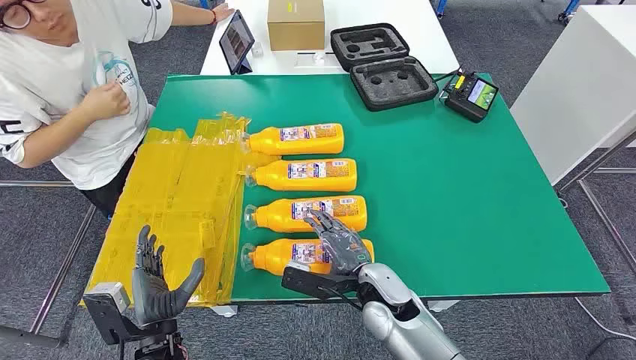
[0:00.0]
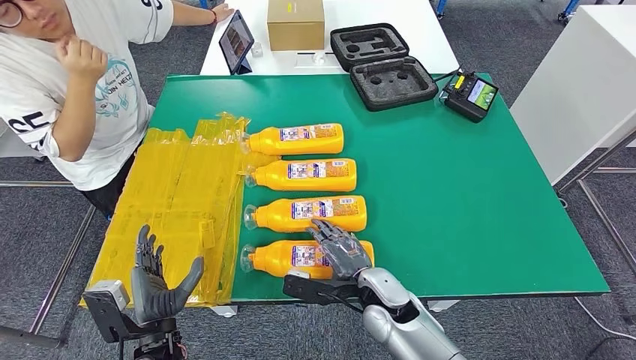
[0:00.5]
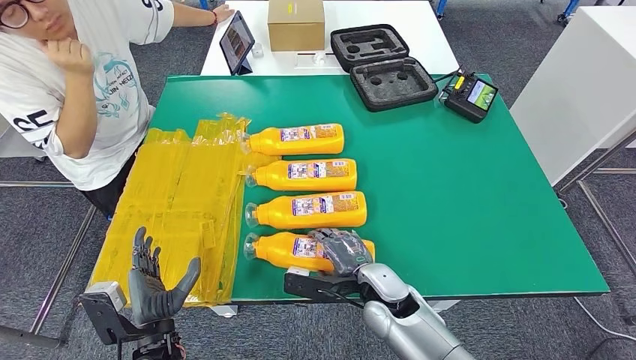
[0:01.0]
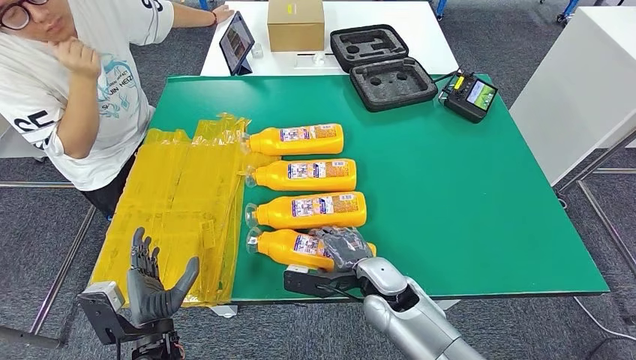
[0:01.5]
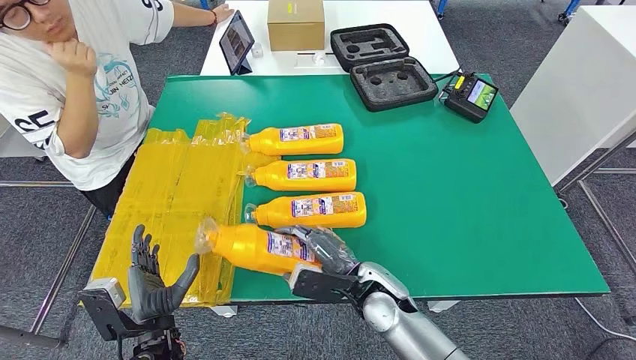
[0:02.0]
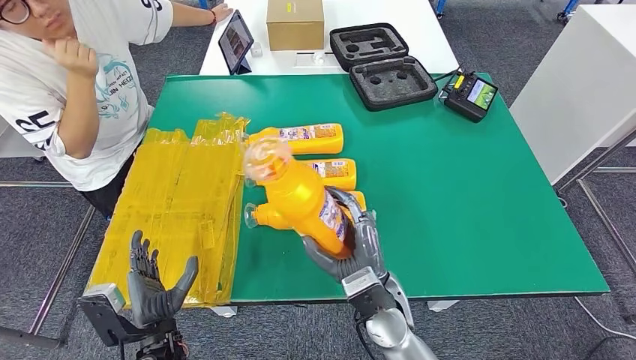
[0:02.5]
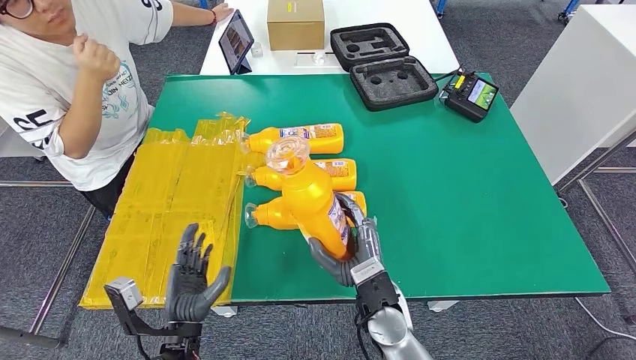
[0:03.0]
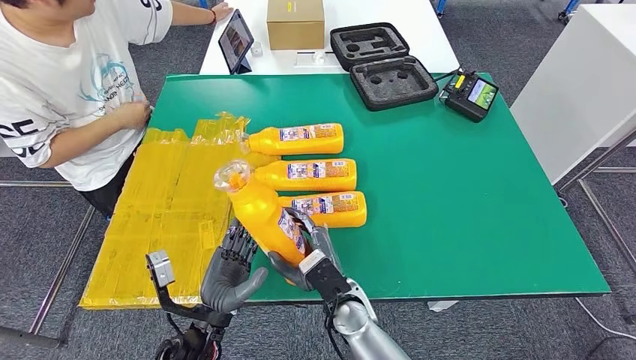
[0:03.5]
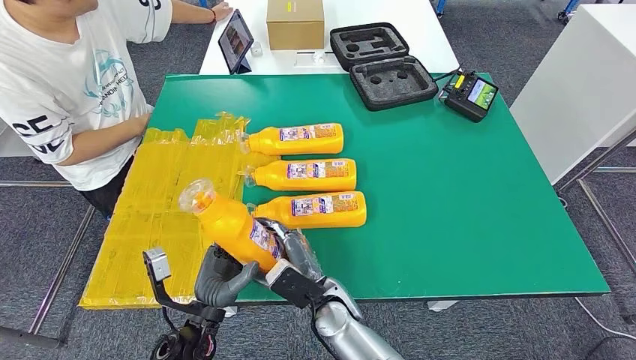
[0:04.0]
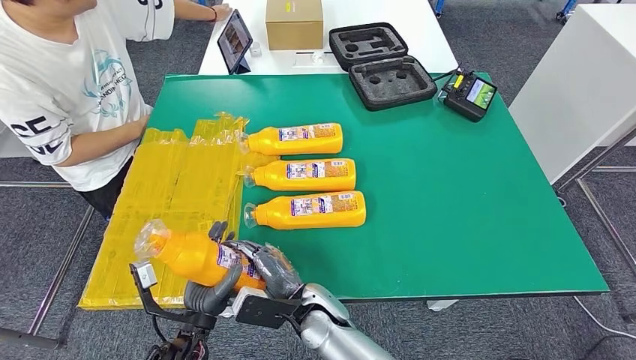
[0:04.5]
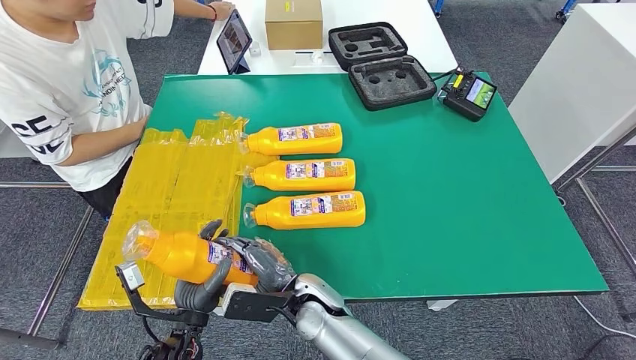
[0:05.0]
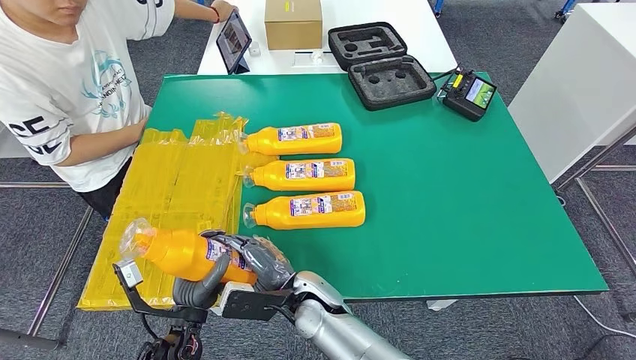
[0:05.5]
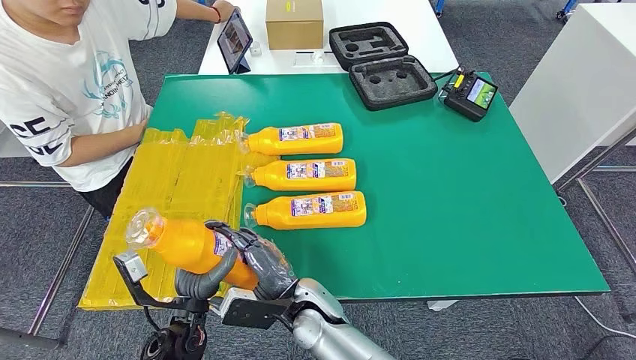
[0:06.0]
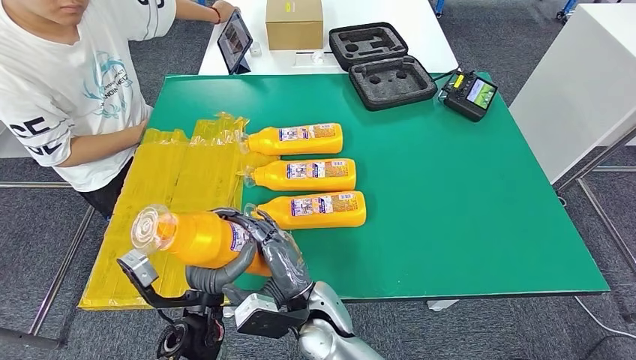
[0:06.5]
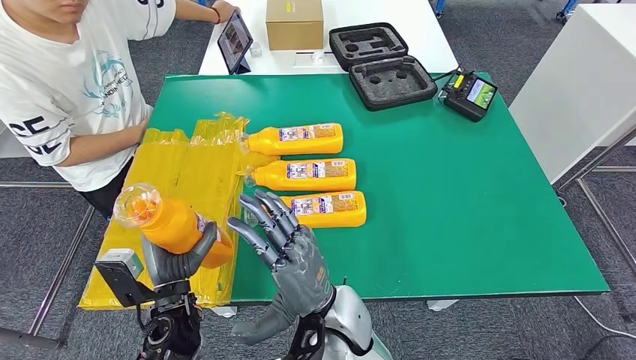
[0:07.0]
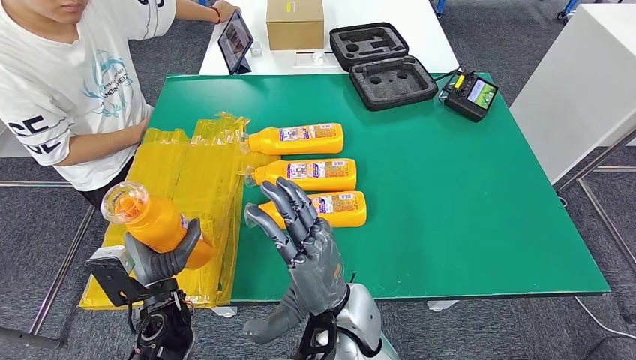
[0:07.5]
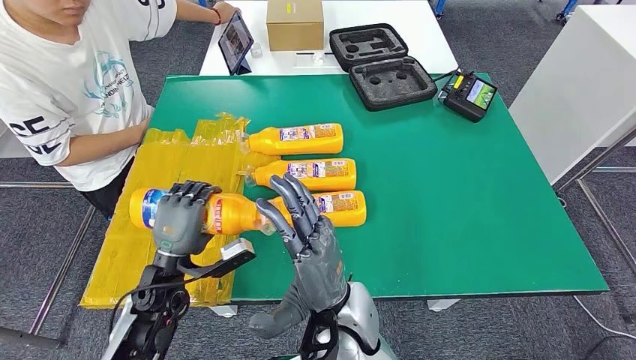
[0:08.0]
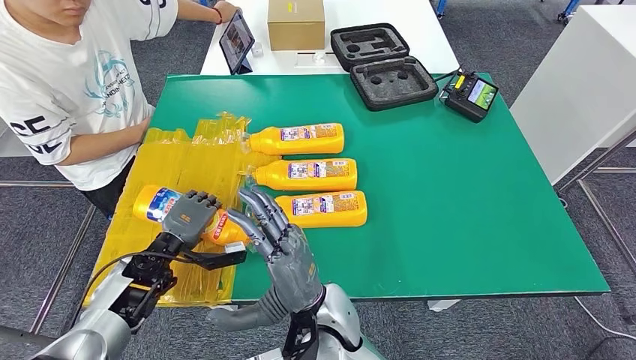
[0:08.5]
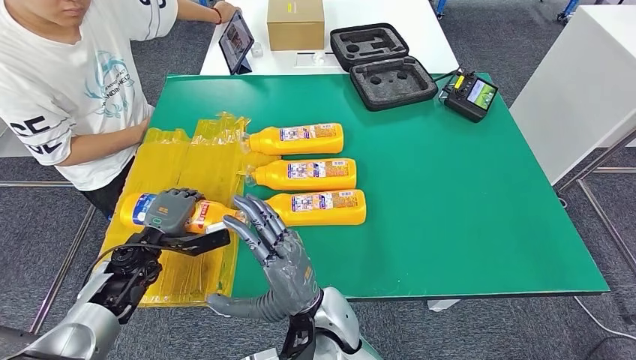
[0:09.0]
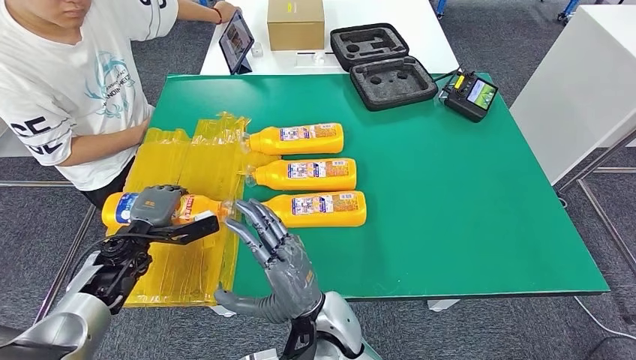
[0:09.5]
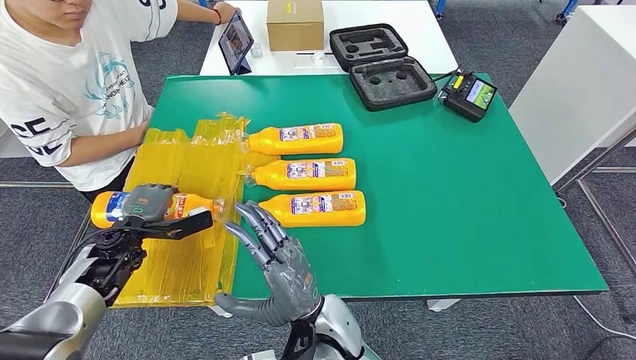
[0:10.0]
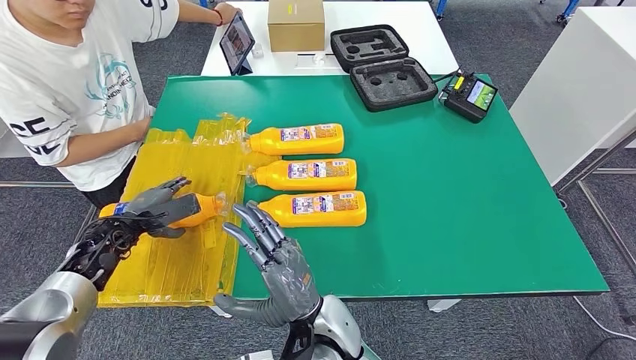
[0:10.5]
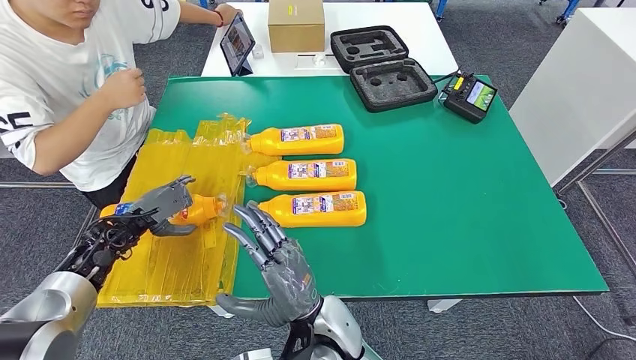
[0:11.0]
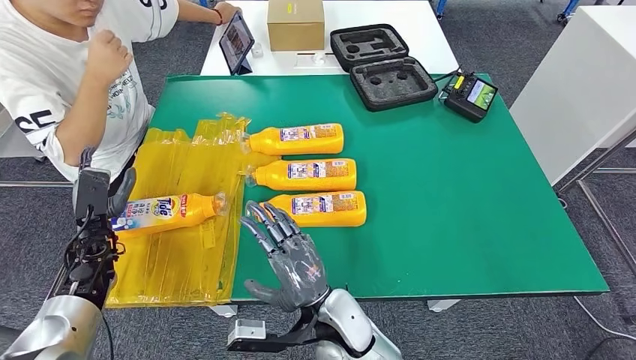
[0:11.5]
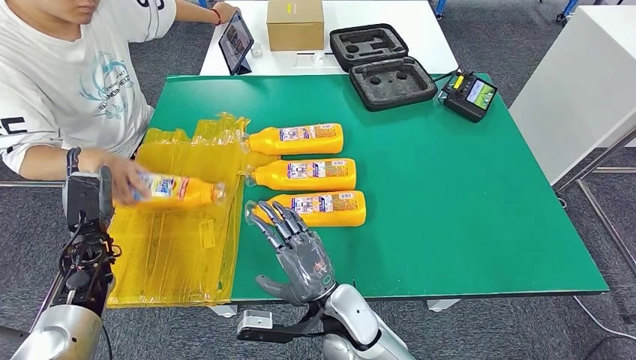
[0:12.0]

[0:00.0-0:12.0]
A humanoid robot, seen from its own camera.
Step, 0:00.0 to 0:03.0: Take the bottle from the table.
Step, 0:04.5 to 0:10.0: Flip the bottle to face forward.
0:02.0 to 0:04.0: The right hand travels to the left by approximately 10 cm; the left hand moves to the right, roughly 5 cm.
0:06.0 to 0:08.0: The left hand moves forward, roughly 5 cm, while the right hand heads upward and to the right, covering approximately 10 cm.
0:08.0 to 0:10.0: The left hand goes about 15 cm to the left and forward. Meanwhile the right hand ends up approximately 5 cm from where it was.
0:10.0 to 0:12.0: The left hand travels to the left by some 5 cm.

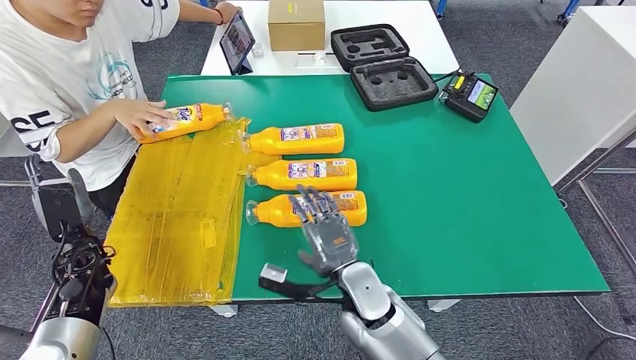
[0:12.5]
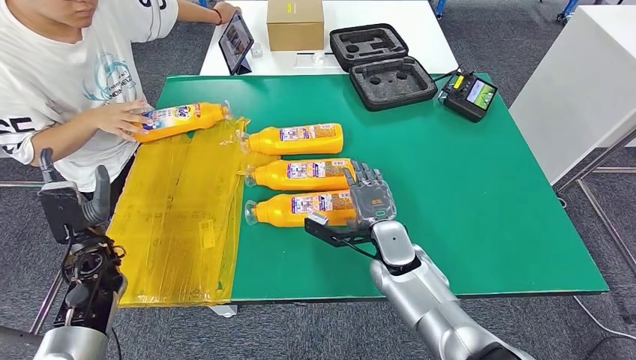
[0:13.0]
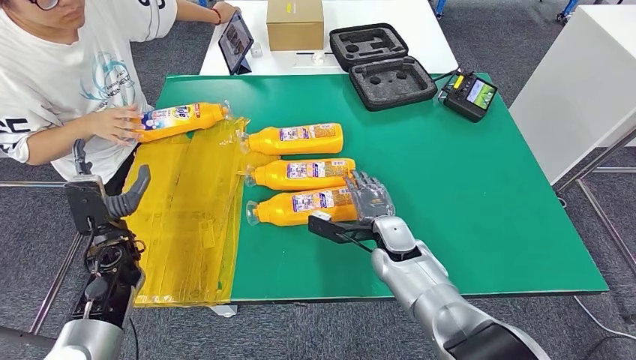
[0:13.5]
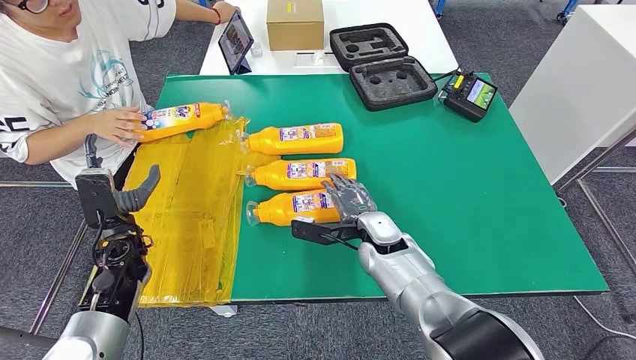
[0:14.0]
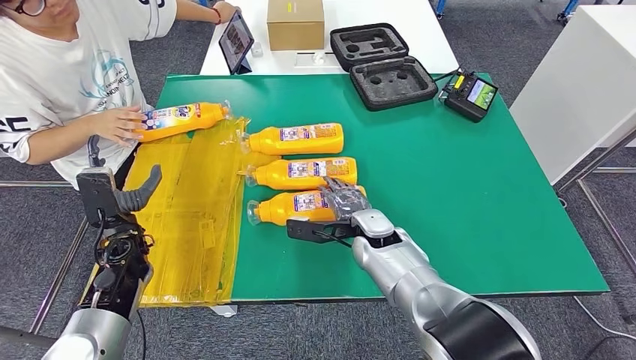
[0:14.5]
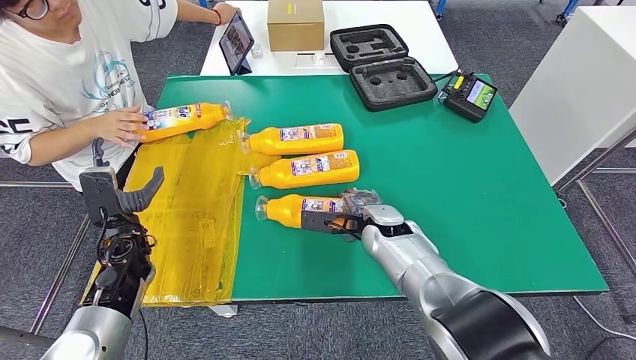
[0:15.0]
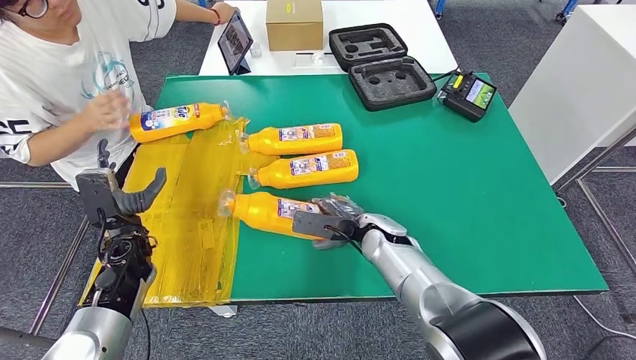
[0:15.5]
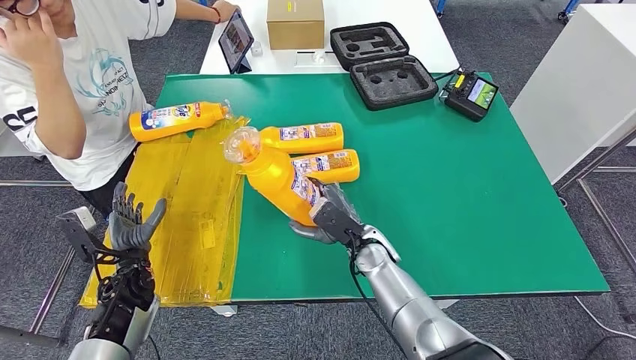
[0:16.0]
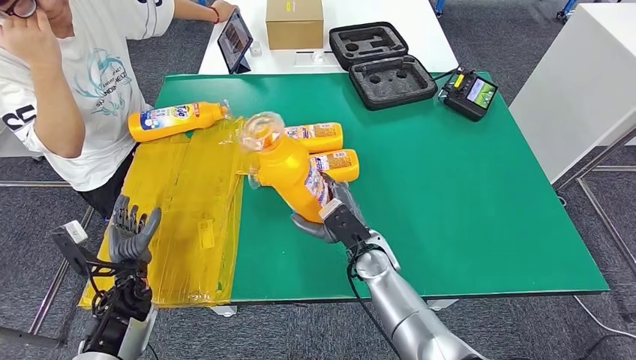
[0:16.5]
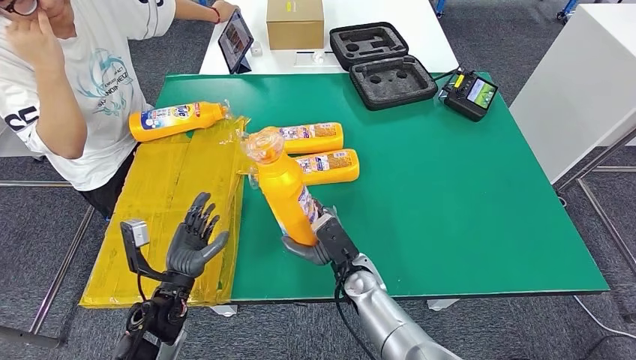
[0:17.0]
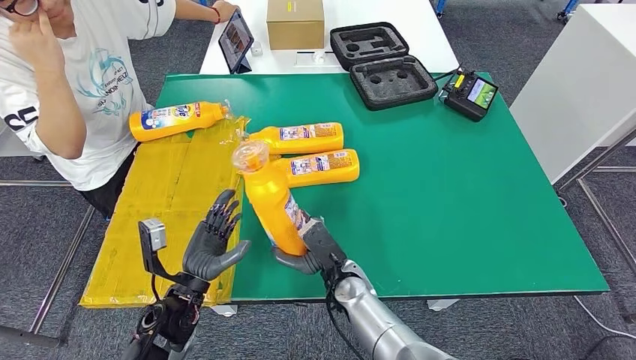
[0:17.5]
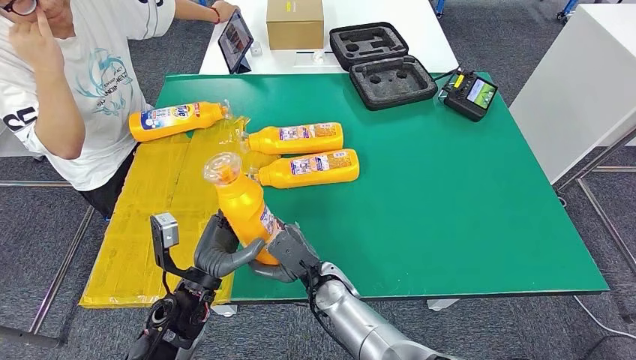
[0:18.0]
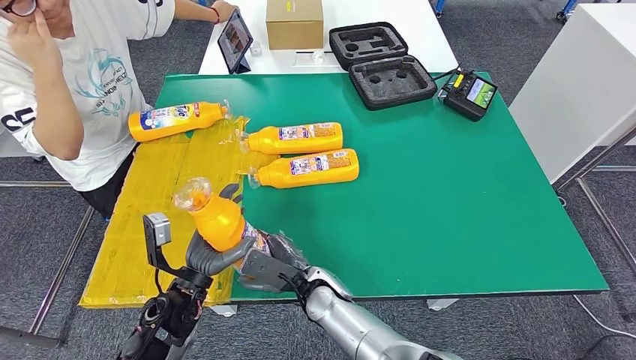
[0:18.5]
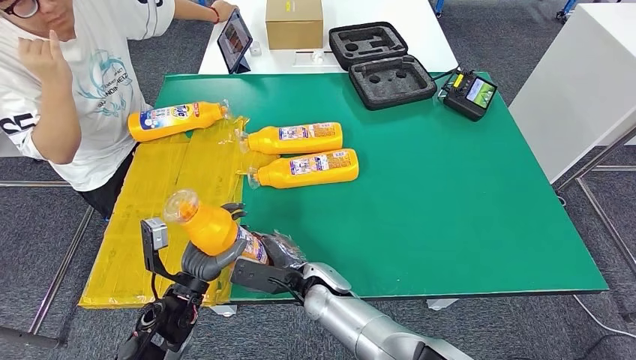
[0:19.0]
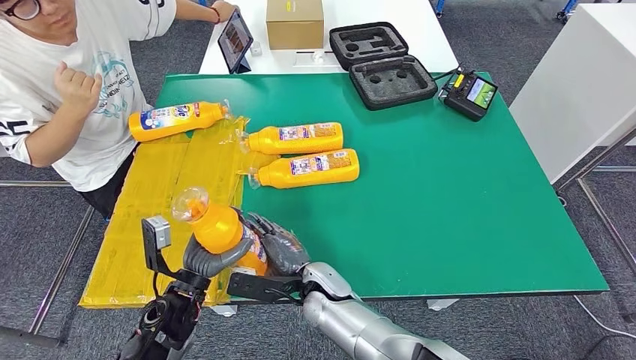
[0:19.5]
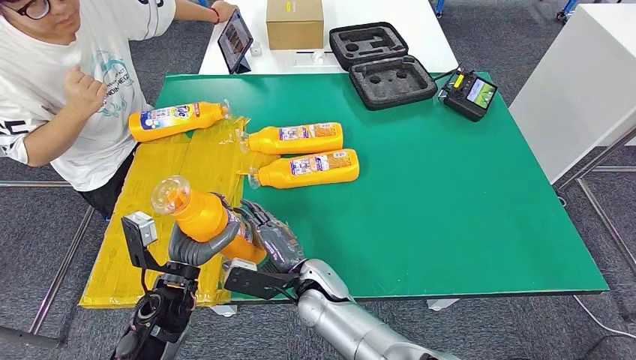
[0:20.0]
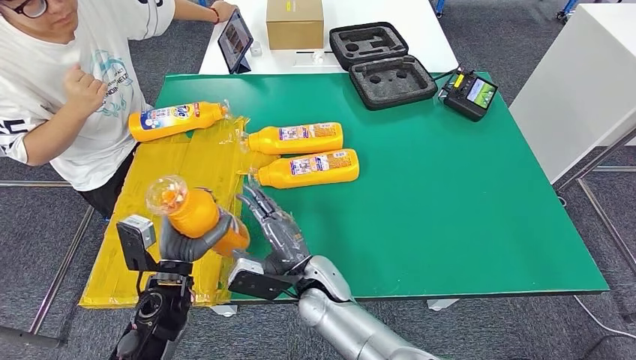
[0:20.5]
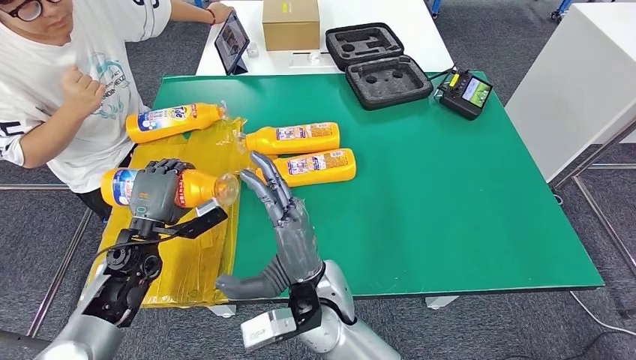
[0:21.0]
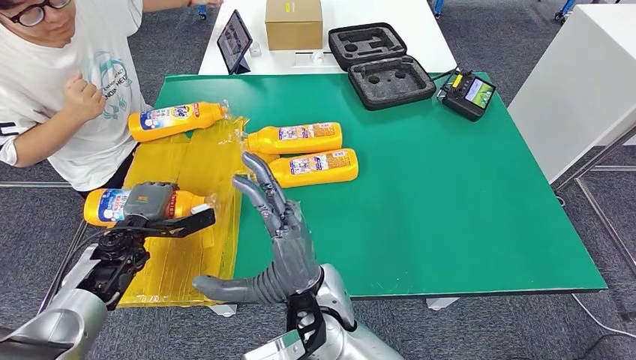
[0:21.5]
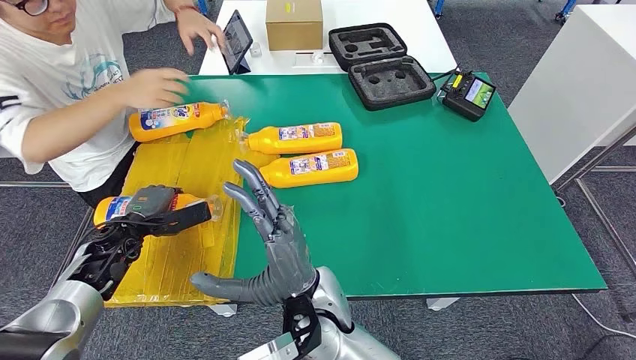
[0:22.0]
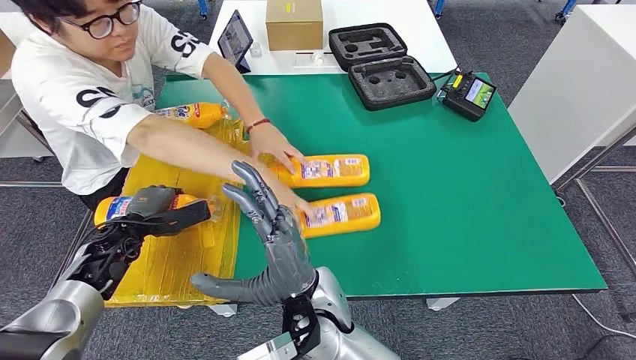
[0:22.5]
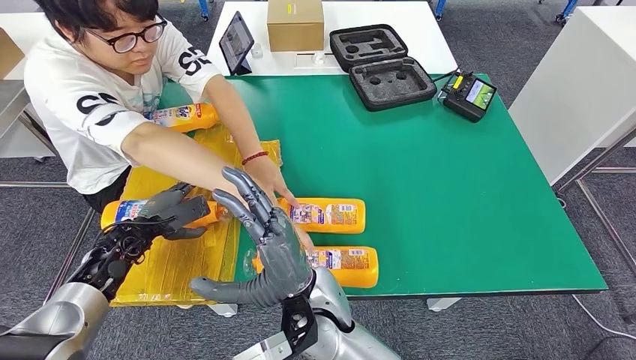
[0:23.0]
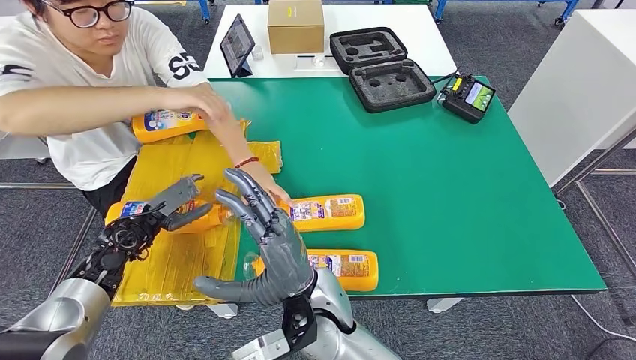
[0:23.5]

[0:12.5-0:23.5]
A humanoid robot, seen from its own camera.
Step, 0:14.5 to 0:17.0: Pick up the bottle from the table.
Step, 0:18.5 to 0:23.5: Flip the bottle to face forward.
0:14.5 to 0:16.0: The left hand shifts some 5 cm downward.
0:16.0 to 0:18.0: The right hand travels to the left and backward by approximately 10 cm; the left hand moves to the right, some 15 cm.
